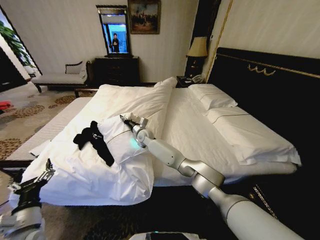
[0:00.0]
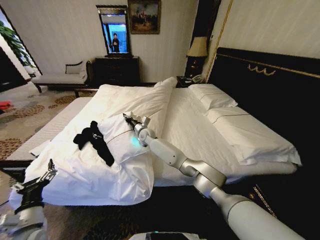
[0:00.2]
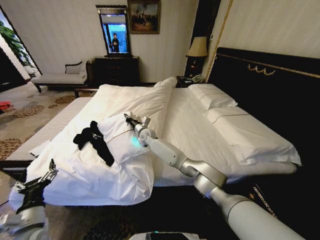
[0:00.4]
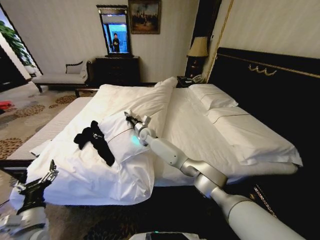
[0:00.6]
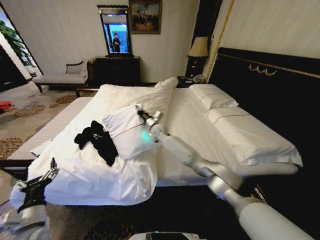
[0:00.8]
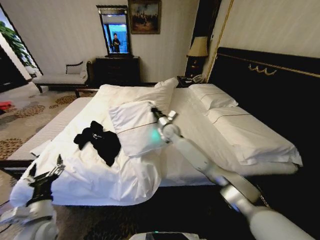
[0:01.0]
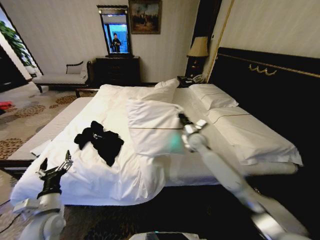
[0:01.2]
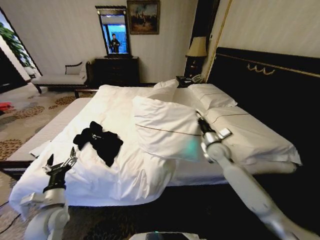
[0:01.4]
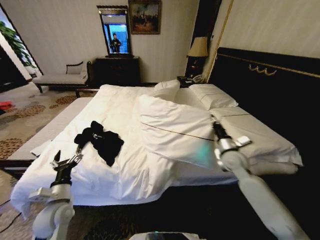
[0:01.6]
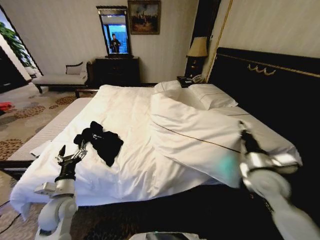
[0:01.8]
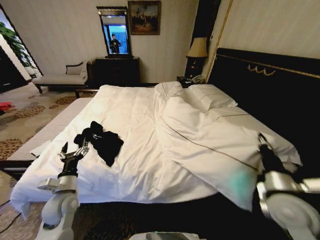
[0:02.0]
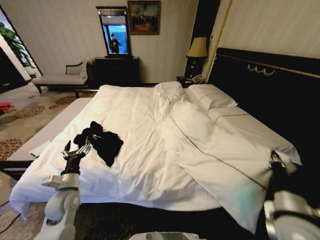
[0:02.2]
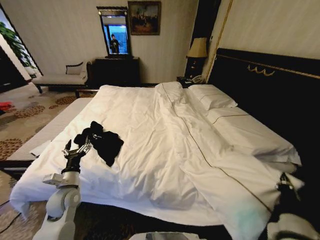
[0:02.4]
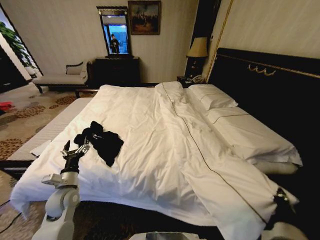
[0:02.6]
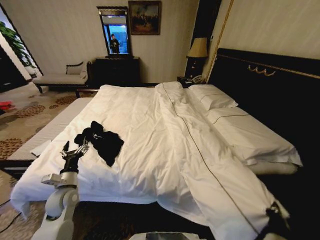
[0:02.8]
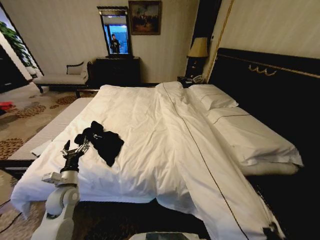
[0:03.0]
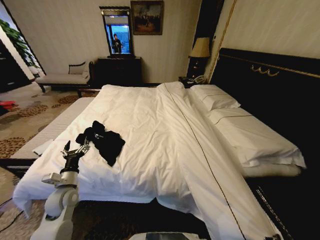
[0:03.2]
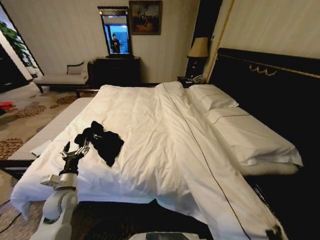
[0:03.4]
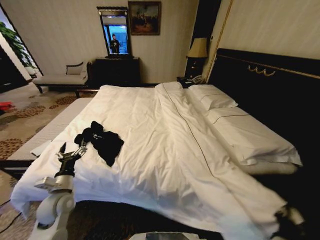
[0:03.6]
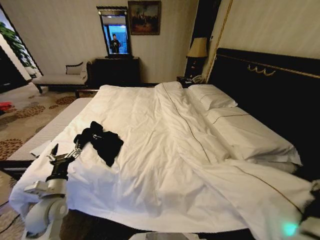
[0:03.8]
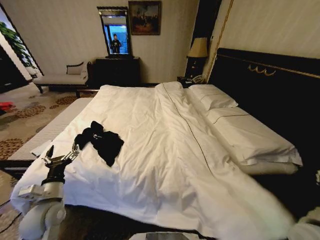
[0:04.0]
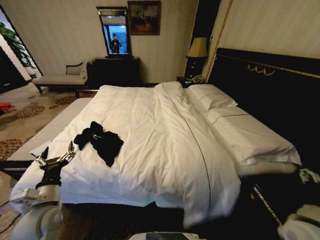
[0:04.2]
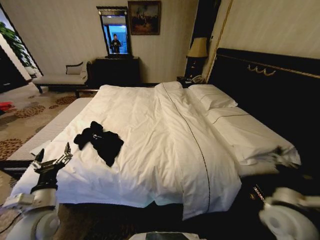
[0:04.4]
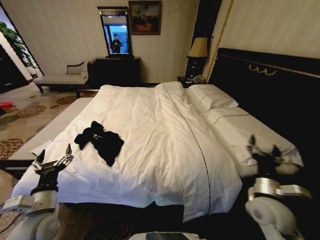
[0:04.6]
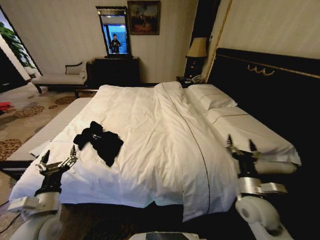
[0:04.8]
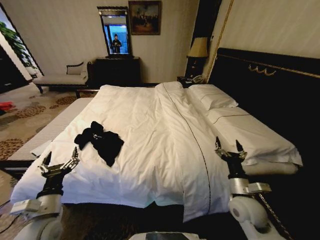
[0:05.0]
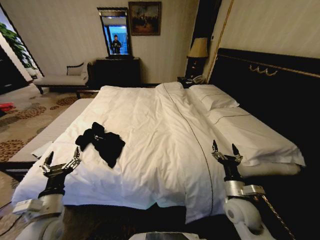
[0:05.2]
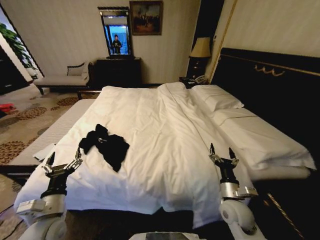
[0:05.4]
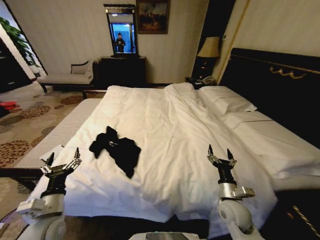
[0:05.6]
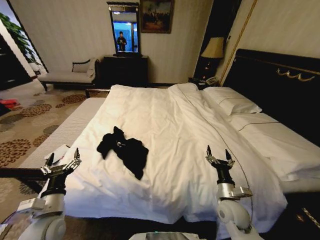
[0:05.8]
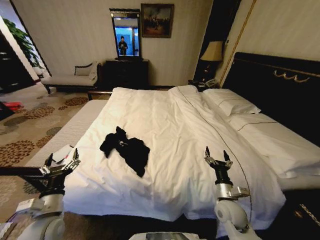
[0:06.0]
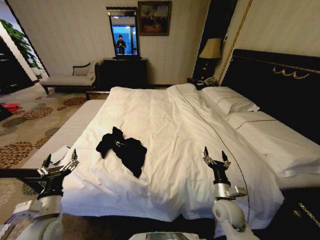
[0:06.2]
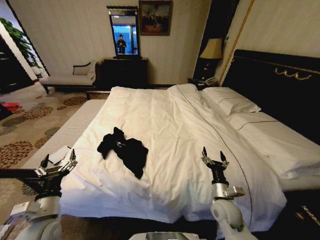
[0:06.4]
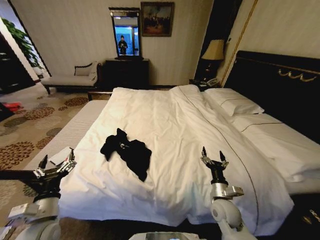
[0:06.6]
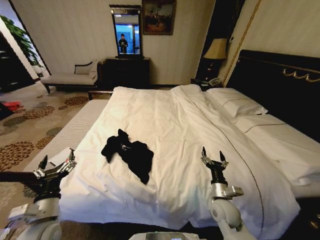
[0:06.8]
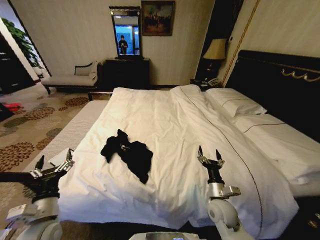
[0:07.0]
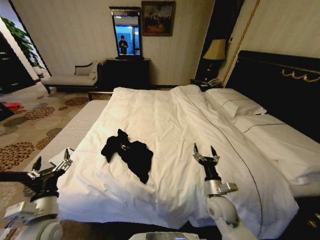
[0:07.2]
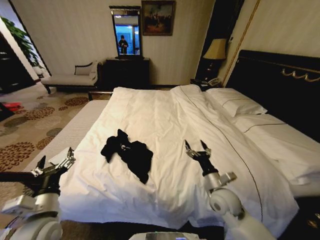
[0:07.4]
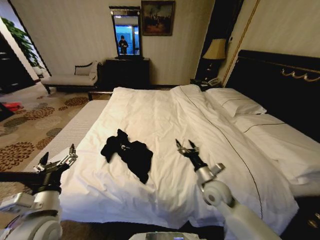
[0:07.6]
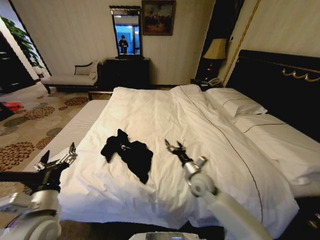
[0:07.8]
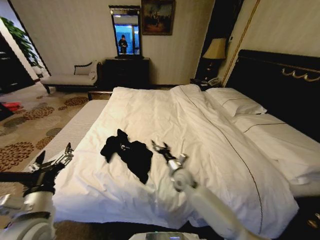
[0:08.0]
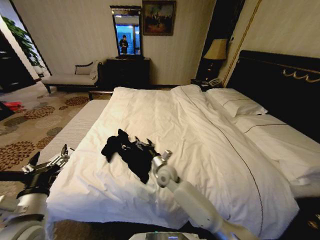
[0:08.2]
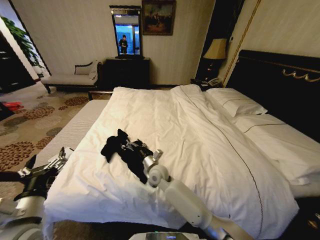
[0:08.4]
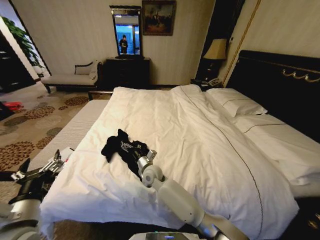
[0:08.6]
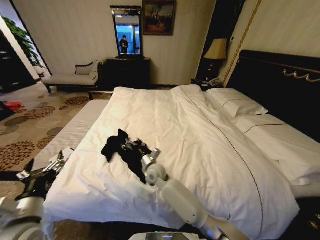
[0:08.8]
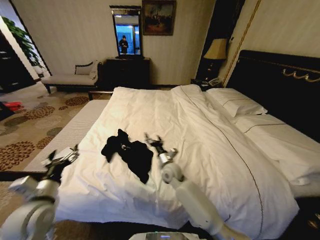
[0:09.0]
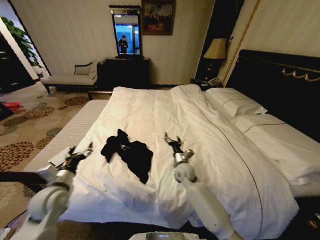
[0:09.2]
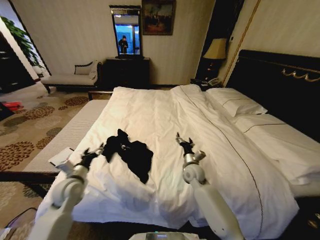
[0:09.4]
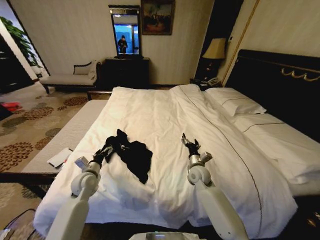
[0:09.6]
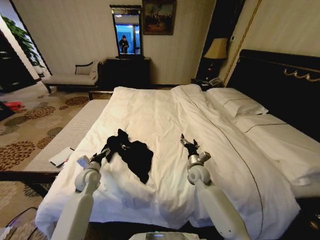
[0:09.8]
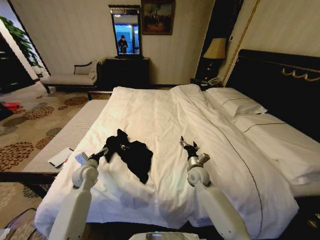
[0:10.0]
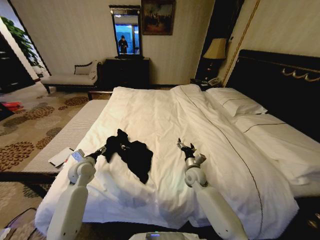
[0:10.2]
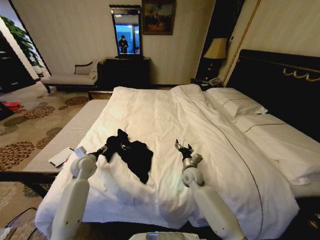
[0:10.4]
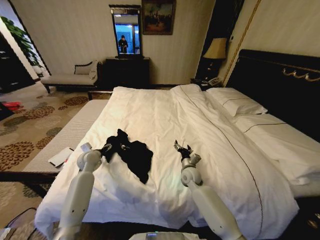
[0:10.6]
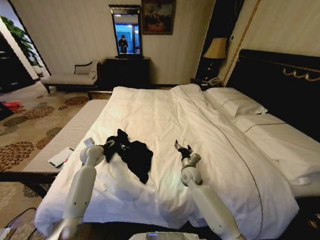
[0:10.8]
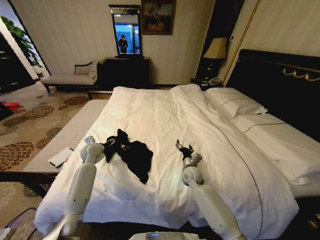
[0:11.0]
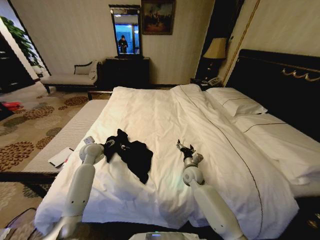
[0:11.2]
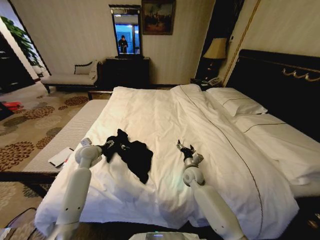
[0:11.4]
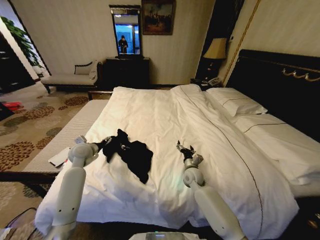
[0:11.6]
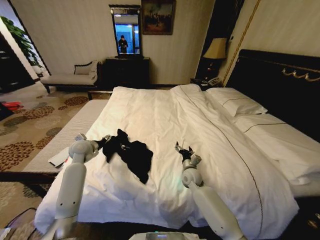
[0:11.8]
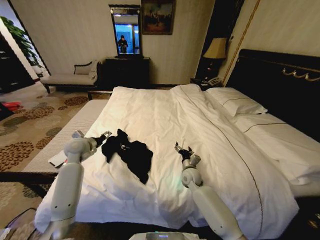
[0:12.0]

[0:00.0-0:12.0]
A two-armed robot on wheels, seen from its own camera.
Task of the whole recording: Fold the clothes on the bed.
0:00.0 to 0:01.6: The right gripper moves to the right and backward, about 40 cm, and closes up; the left gripper is displaced forward by roughly 10 cm.
0:01.6 to 0:03.0: The right gripper moves backward, about 30 cm, while the left gripper heads forward, covering some 5 cm.
0:03.0 to 0:04.4: The right gripper travels forward, upward and to the right by approximately 20 cm, and opens its fingers. Meanwhile the left gripper shifts about 10 cm backward and upward.
0:04.4 to 0:06.0: The right gripper moves downward and to the left, approximately 15 cm.
0:06.0 to 0:07.6: The right gripper is displaced forward and upward by approximately 10 cm. The left gripper goes roughly 5 cm upward.
0:07.6 to 0:09.0: The right gripper shifts some 20 cm to the left and forward. Meanwhile the left gripper ends up some 5 cm from where it was.
0:09.0 to 0:10.4: The right gripper travels to the right by some 10 cm. The left gripper goes about 20 cm forward.
0:10.4 to 0:12.0: The left gripper moves upward, approximately 10 cm.

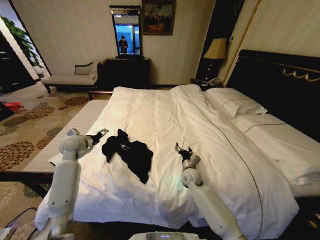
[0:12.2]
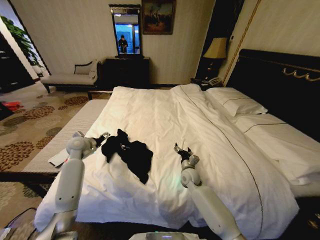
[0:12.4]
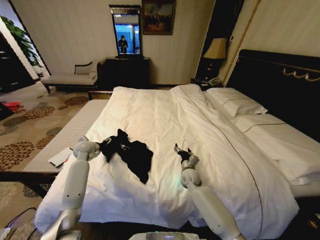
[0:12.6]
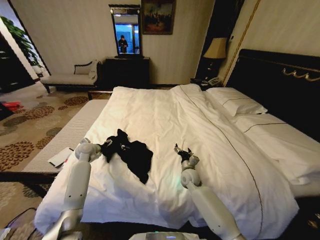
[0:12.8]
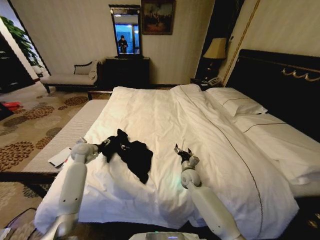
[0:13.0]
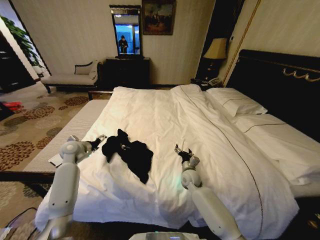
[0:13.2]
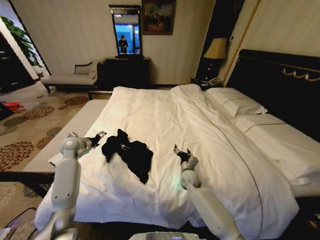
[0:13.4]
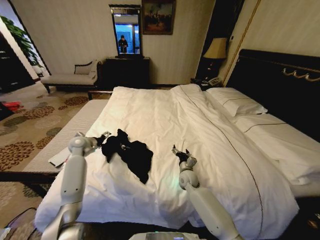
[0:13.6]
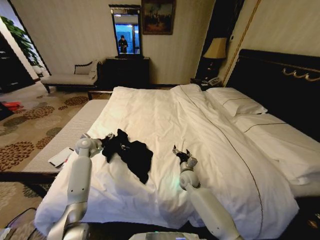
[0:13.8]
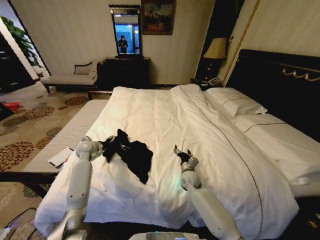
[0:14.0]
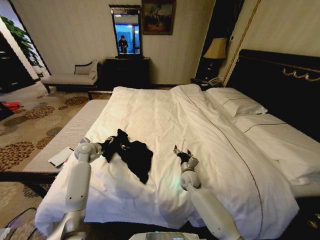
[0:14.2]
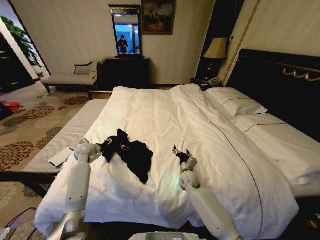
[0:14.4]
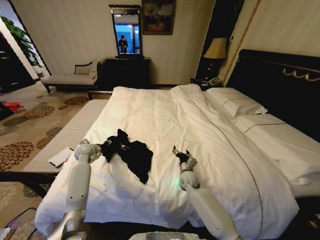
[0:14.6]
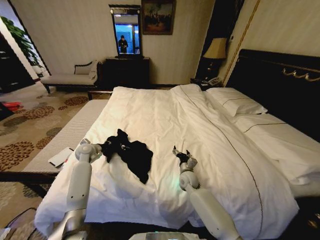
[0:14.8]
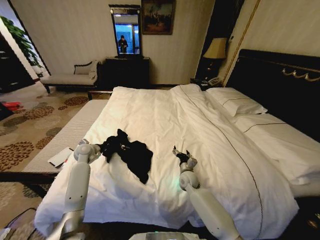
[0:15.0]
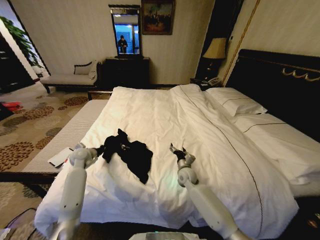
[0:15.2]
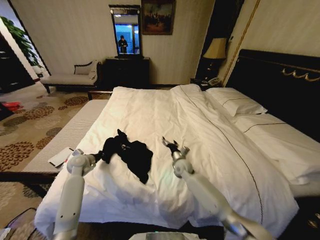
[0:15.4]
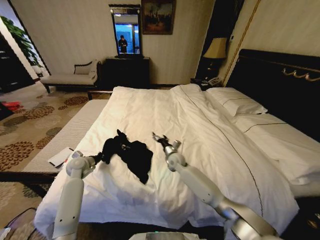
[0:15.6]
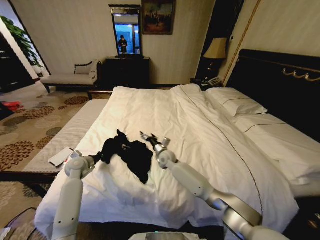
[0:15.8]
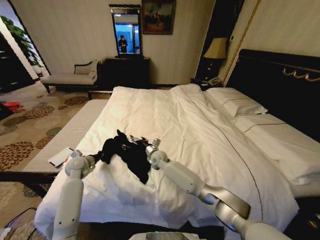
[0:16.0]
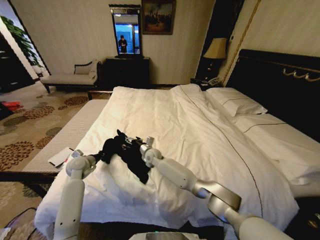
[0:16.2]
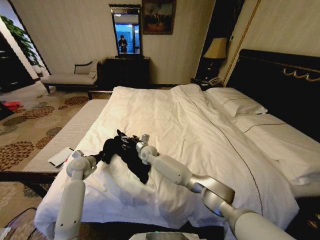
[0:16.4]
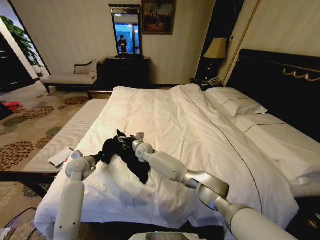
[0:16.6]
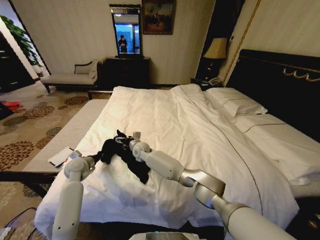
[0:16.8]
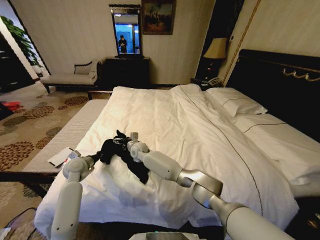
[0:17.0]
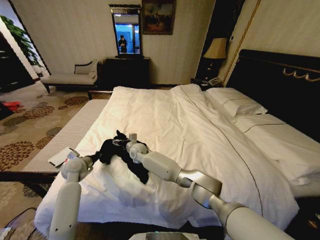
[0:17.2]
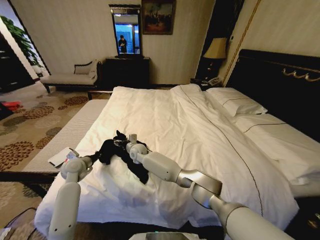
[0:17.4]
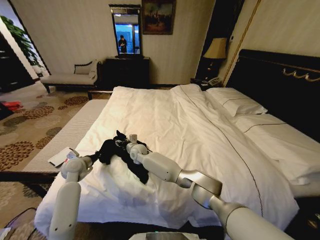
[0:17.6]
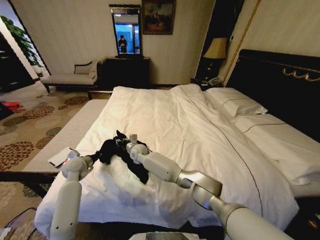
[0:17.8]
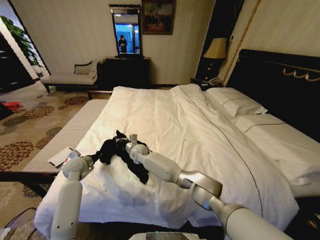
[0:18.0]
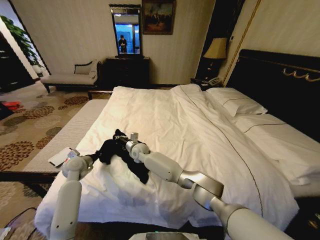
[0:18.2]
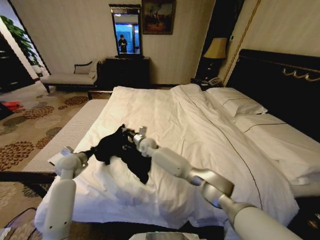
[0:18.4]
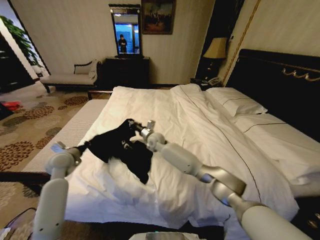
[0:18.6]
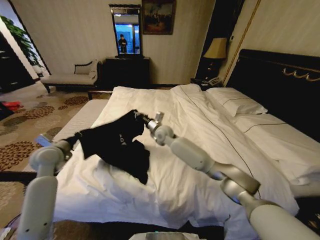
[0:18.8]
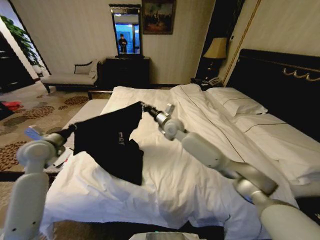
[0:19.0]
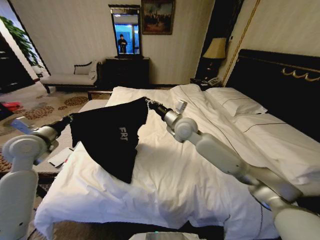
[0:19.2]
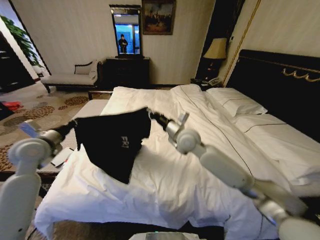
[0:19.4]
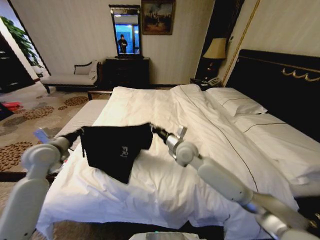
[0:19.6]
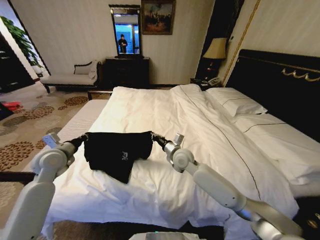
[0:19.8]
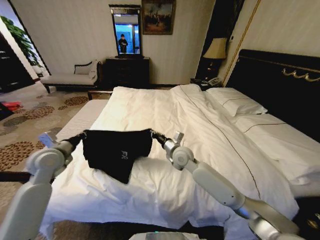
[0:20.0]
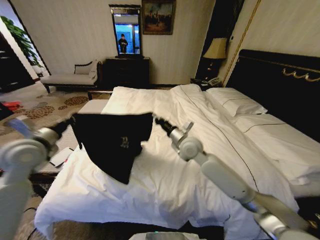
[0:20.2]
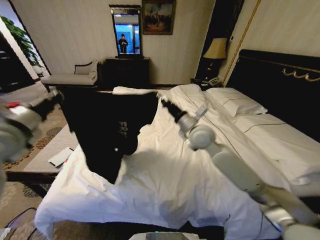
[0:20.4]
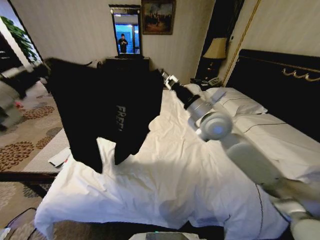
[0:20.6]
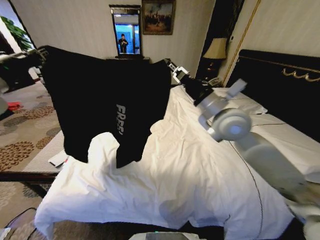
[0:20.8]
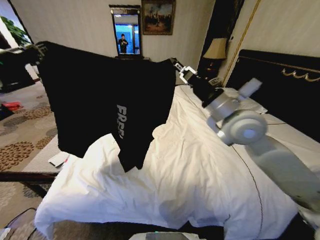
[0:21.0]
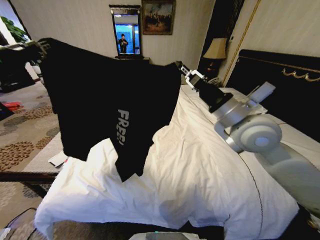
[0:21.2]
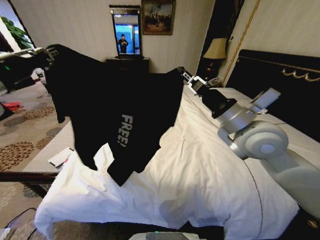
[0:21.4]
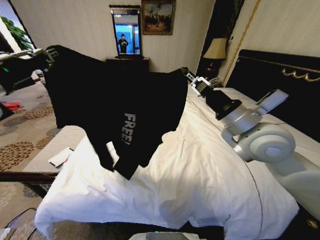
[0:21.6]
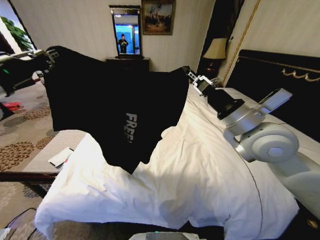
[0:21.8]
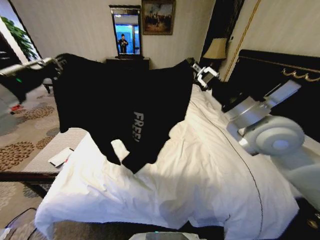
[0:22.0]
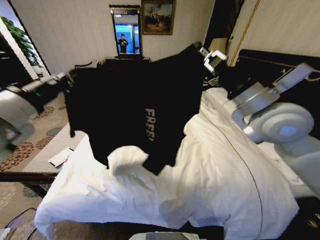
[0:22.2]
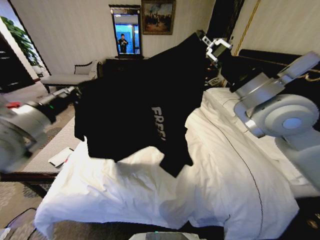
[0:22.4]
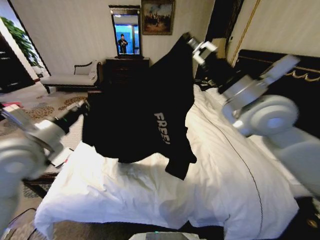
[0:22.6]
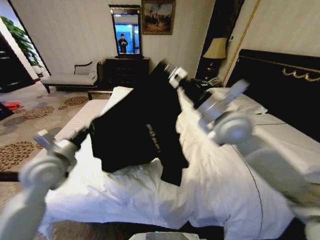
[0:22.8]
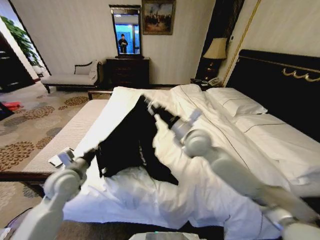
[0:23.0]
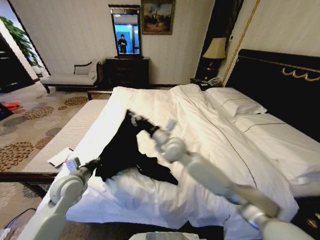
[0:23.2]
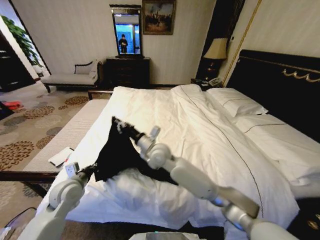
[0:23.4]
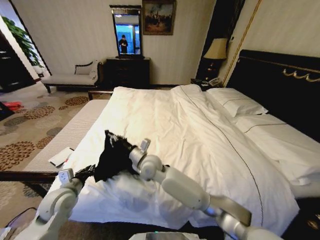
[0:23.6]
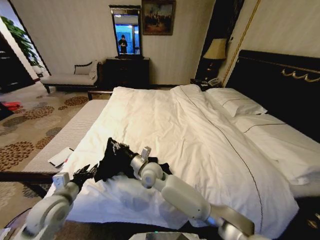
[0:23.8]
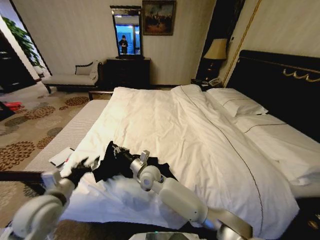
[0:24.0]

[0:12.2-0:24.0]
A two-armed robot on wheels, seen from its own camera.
Task of the whole recording: Fold the clothes on the bed.
0:12.2 to 0:13.6: The left gripper heads downward, covering some 5 cm.
0:13.6 to 0:15.2: The left gripper changes place by some 5 cm, and closes its fingers.
0:15.2 to 0:16.6: The left gripper travels backward by about 5 cm; the right gripper is displaced to the left and forward by roughly 25 cm.
0:16.6 to 0:18.2: The right gripper closes.
0:18.2 to 0:19.6: The right gripper moves to the right, upward and backward, approximately 25 cm. The left gripper travels upward by approximately 15 cm.
0:19.6 to 0:21.0: The right gripper shifts about 20 cm upward and to the right; the left gripper shifts approximately 25 cm upward.
0:21.0 to 0:22.6: The left gripper is displaced downward by roughly 15 cm.
0:22.6 to 0:24.0: The right gripper shifts approximately 40 cm downward and to the left. The left gripper moves downward and backward, about 15 cm, and opens.
